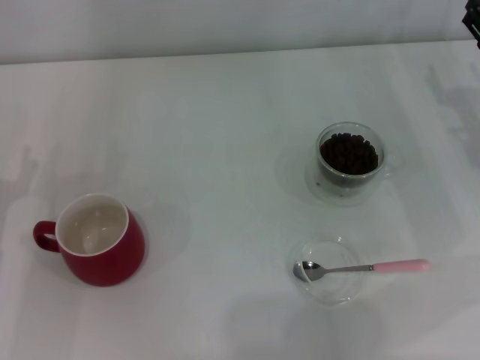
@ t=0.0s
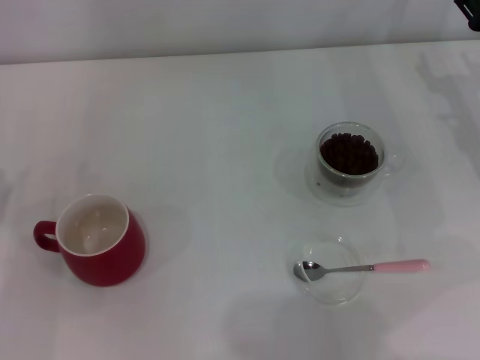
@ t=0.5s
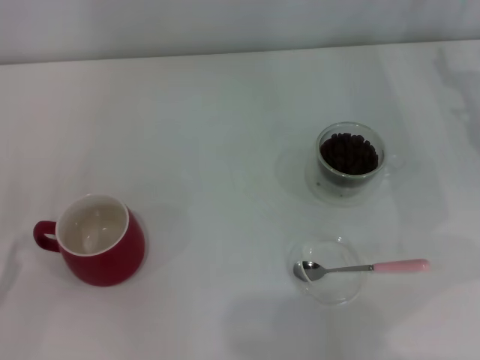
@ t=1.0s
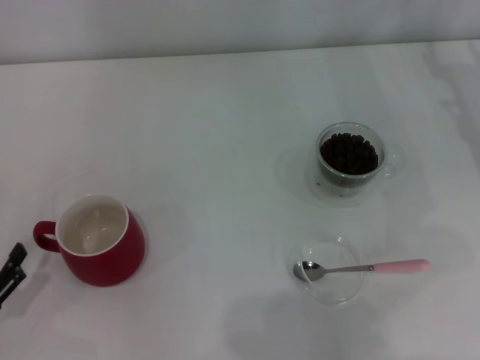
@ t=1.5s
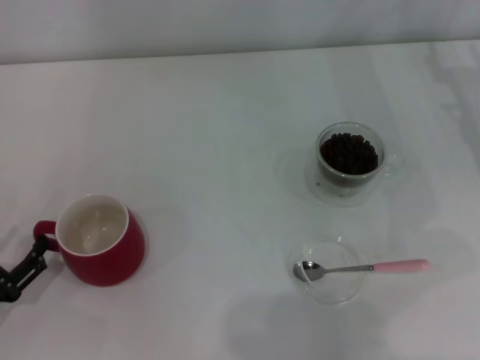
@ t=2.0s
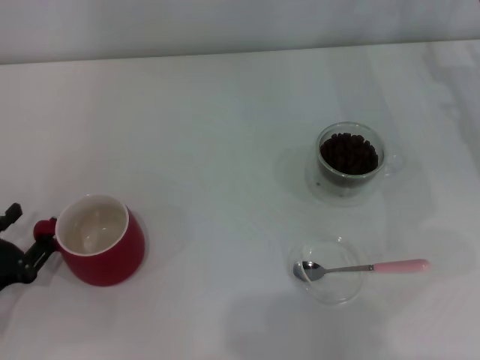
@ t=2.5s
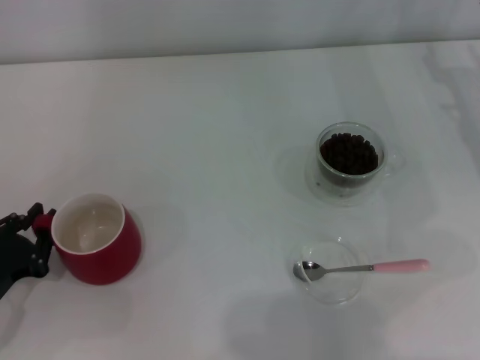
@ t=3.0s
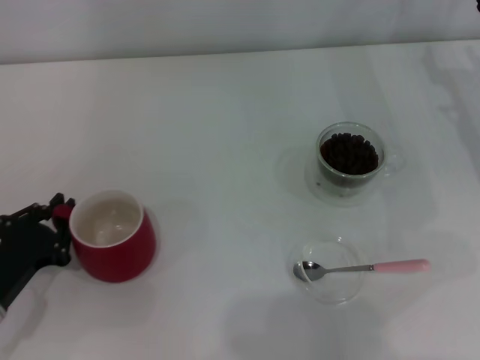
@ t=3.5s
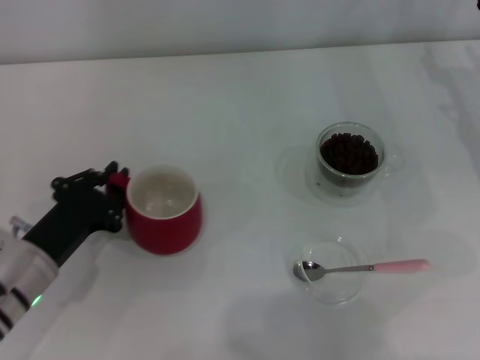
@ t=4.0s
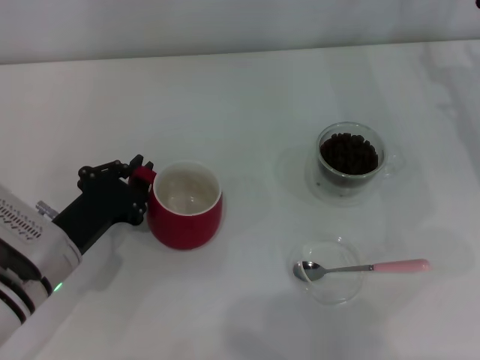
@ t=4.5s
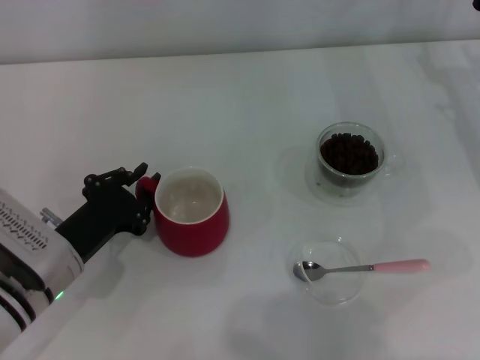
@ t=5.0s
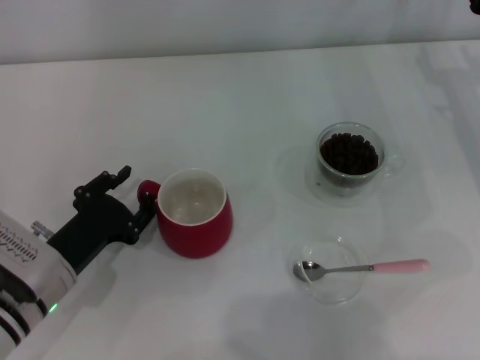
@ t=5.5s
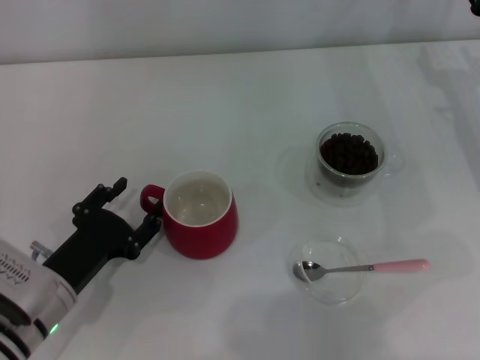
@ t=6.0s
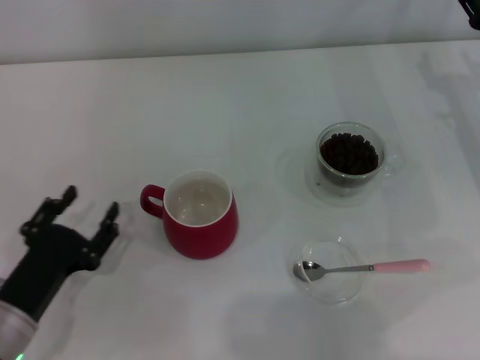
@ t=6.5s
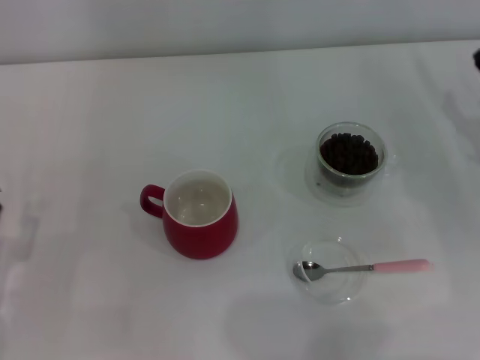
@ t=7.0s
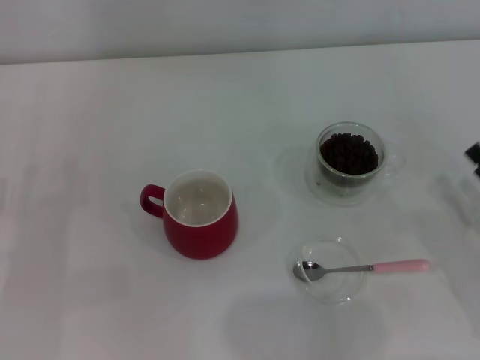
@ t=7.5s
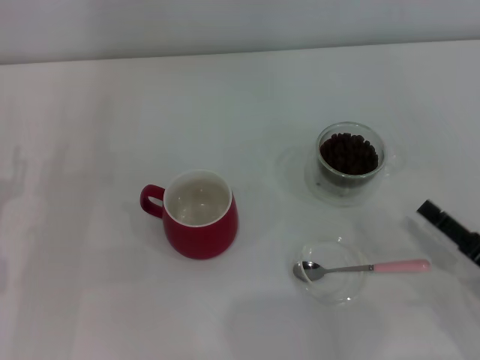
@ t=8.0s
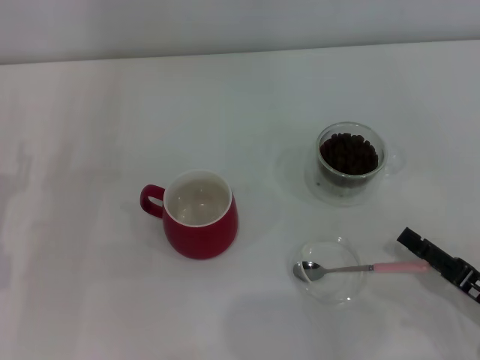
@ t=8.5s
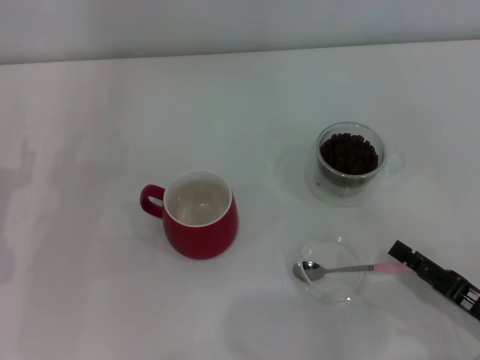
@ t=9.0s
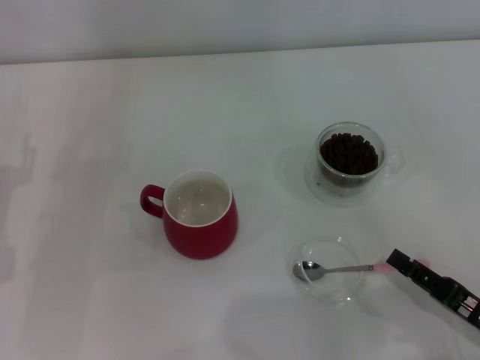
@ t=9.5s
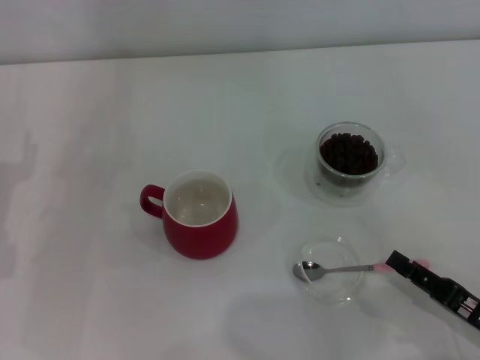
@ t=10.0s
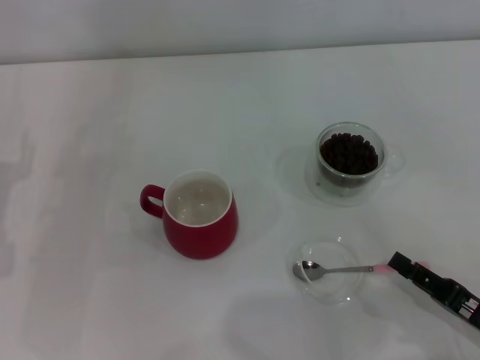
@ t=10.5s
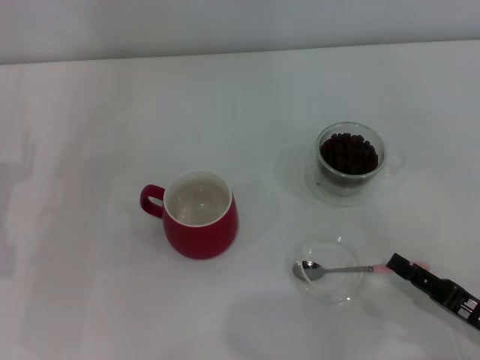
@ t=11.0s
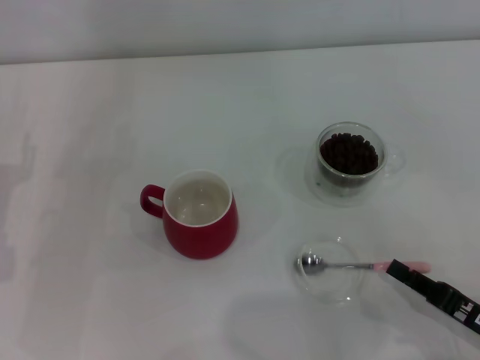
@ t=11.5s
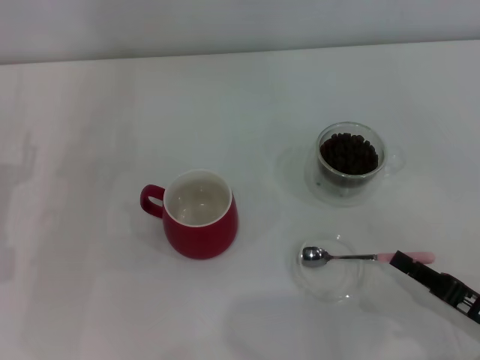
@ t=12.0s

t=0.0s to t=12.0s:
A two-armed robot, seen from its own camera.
Task of the whole recording: Use a pink spoon to take out the coffee beans from the glass and pour them into the red cup.
Step, t=0.0s to t=6.5s: Move the cup to the center of view with the left gripper.
t=0.0s to t=2.0s: The left gripper travels backward by roughly 10 cm.
t=2.0s to t=4.0s: The left gripper travels to the right and forward by approximately 10 cm, and closes its fingers.
t=4.0s to t=6.0s: The left gripper opens.
t=6.0s to t=8.0s: The left gripper heads to the left, covering about 10 cm; the right gripper shifts some 25 cm backward.
t=8.0s to t=10.0s: The right gripper closes up.
t=10.0s to t=12.0s: The right gripper closes its fingers.

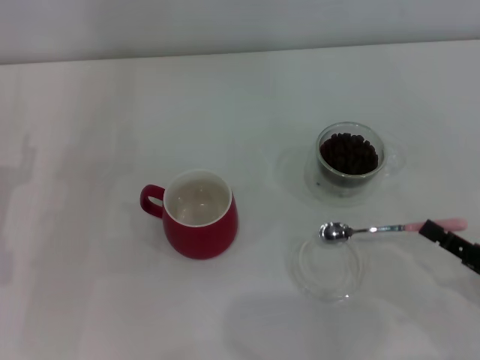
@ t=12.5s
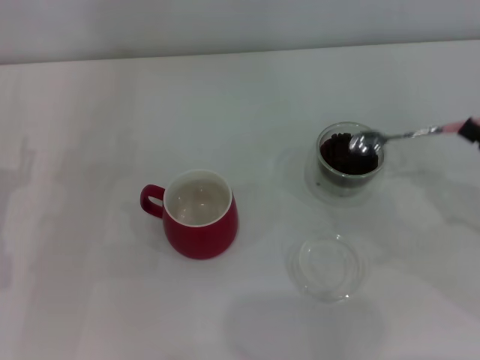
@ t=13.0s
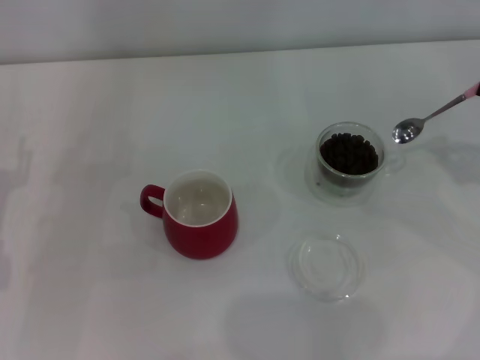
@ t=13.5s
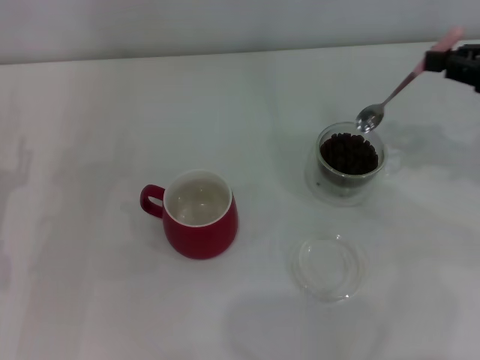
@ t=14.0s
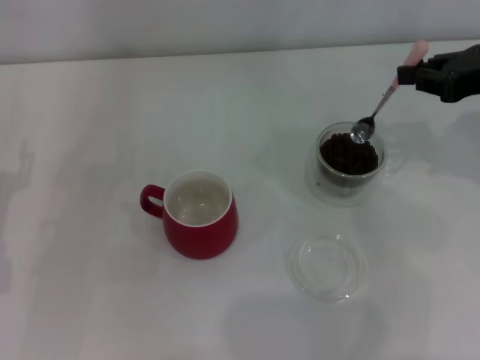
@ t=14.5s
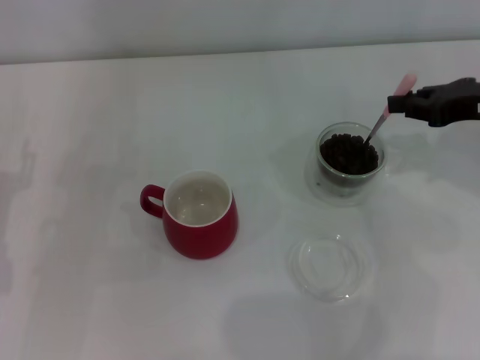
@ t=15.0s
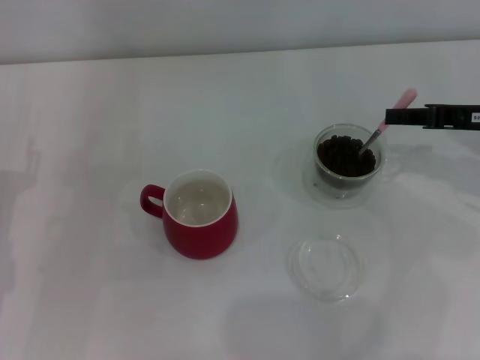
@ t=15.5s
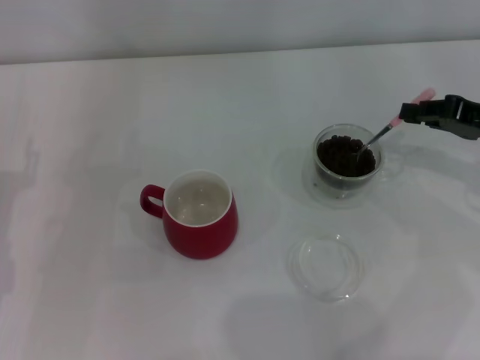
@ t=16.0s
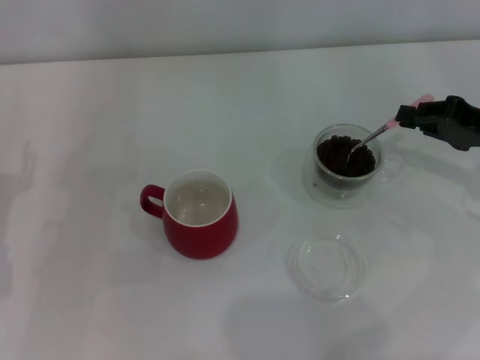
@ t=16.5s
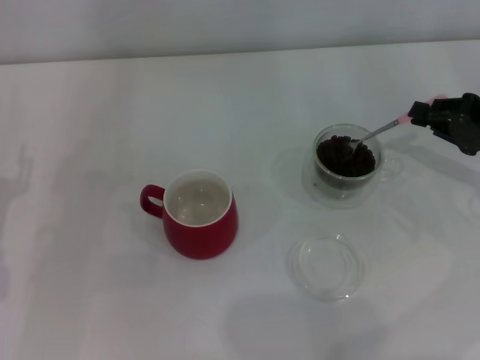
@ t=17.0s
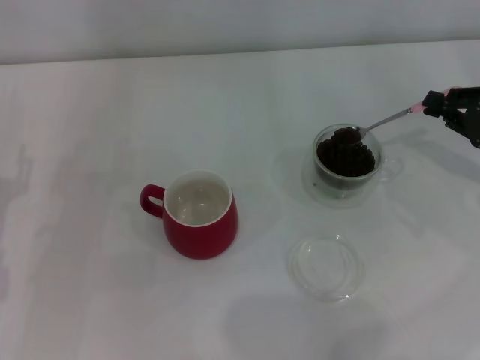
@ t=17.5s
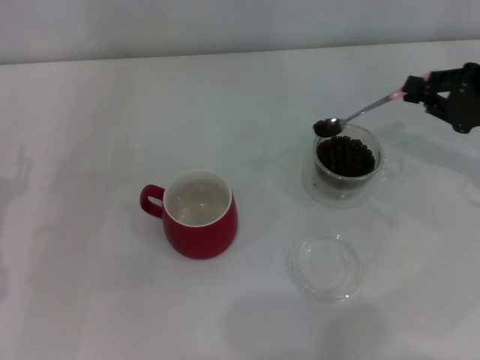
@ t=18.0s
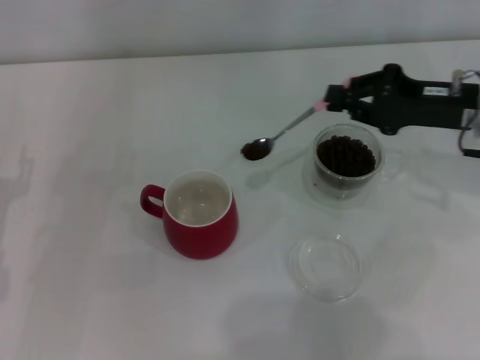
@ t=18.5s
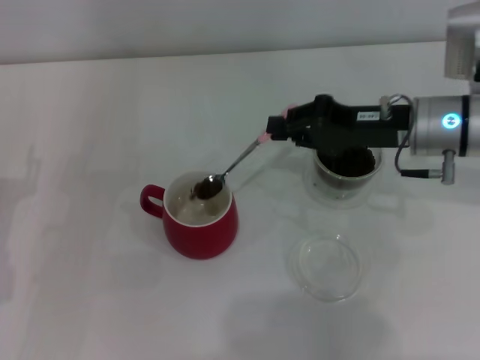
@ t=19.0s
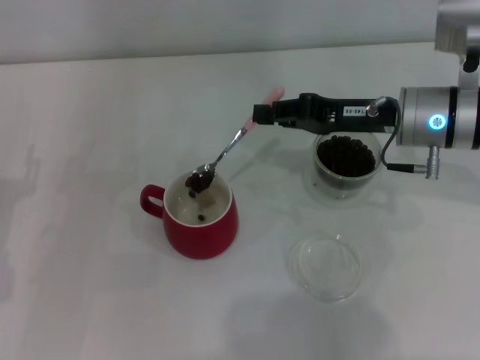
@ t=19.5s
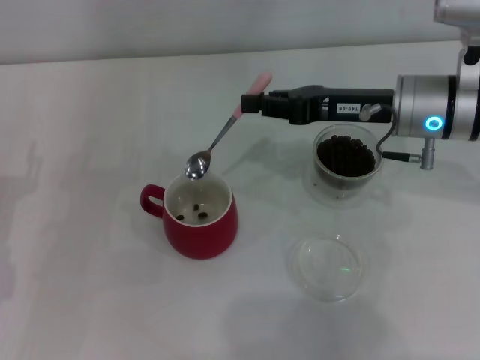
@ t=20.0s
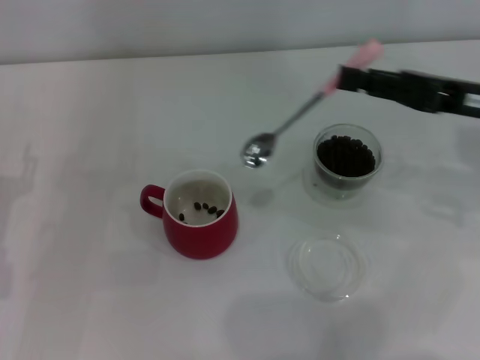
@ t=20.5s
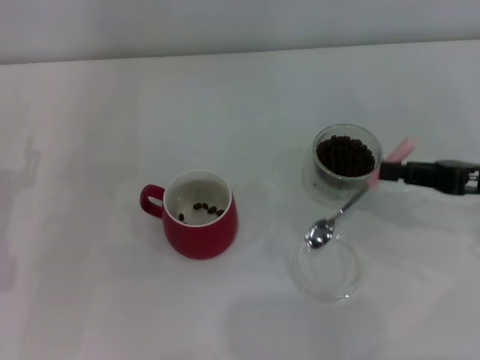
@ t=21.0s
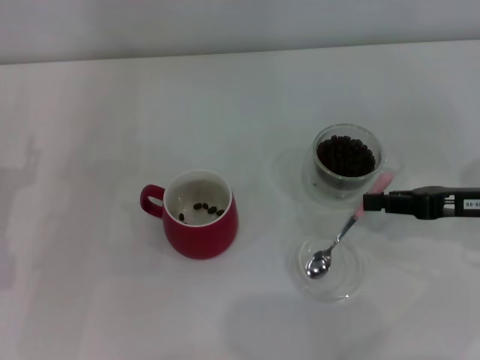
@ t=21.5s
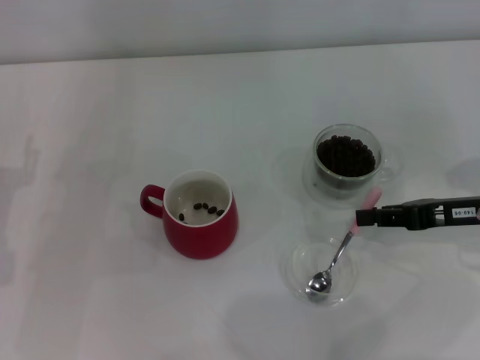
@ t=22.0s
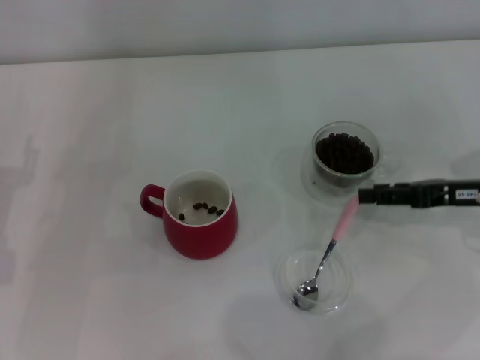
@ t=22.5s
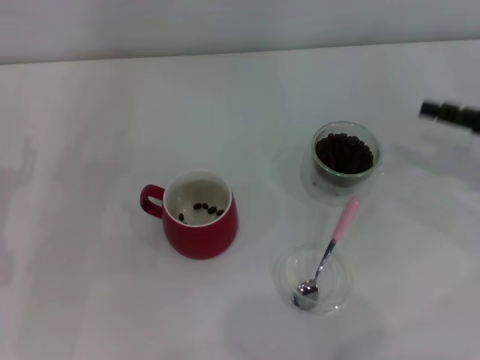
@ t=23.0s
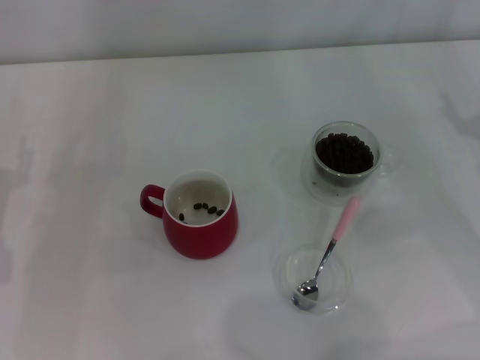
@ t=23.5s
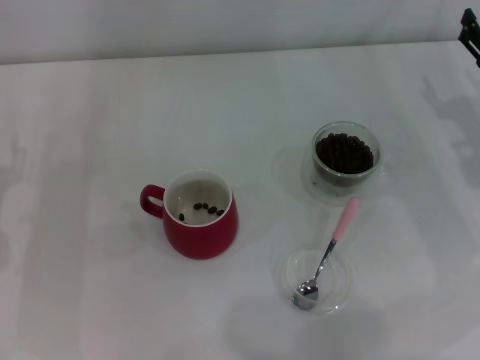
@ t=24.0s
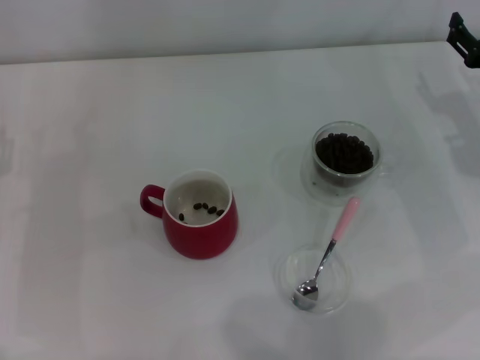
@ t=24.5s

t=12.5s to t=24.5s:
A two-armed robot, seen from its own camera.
Task of the whole recording: Use a pink spoon to take out the coffee beans from the glass and pour them into the red cup.
Step, t=13.0s to t=20.0s: Scoop a spoonful of beans into the cup with the right gripper.
Step, t=20.5s to t=22.5s: Place the spoon back in its original place with the right gripper.
t=12.5s to t=14.5s: The right gripper shifts some 25 cm forward and upward.
t=14.5s to t=16.5s: The right gripper travels downward by approximately 10 cm.
t=16.5s to t=18.5s: The right gripper is displaced to the left by some 5 cm.
t=18.5s to t=20.5s: The right gripper moves about 10 cm to the left and comes back.
t=20.5s to t=22.5s: The right gripper moves downward, approximately 10 cm.
t=22.5s to t=24.5s: The right gripper travels forward by approximately 5 cm, and opens up.

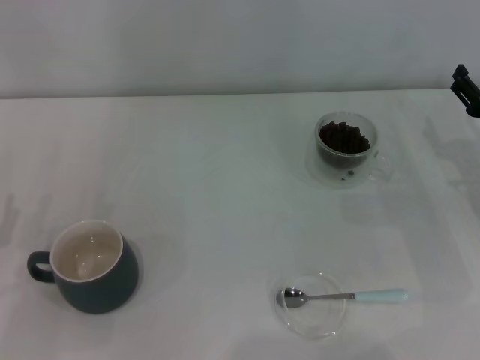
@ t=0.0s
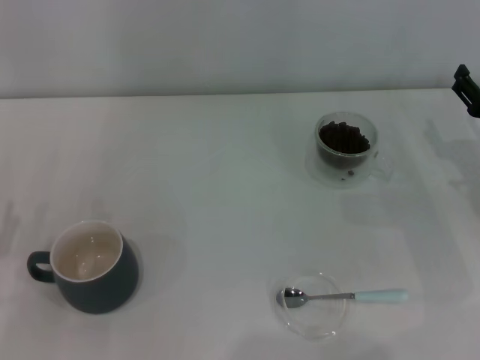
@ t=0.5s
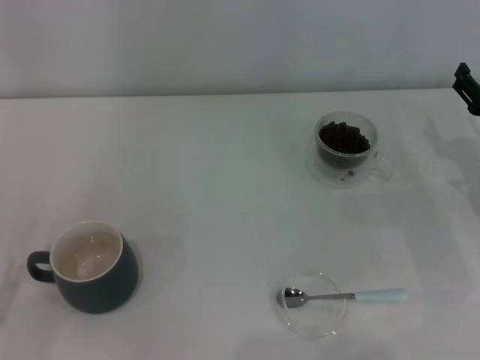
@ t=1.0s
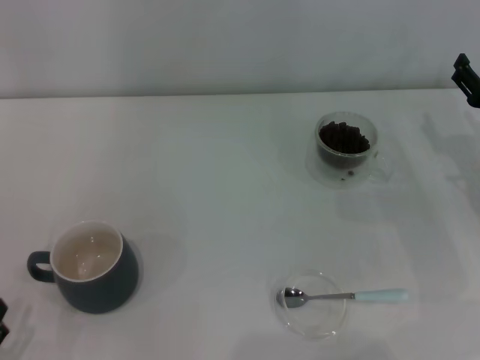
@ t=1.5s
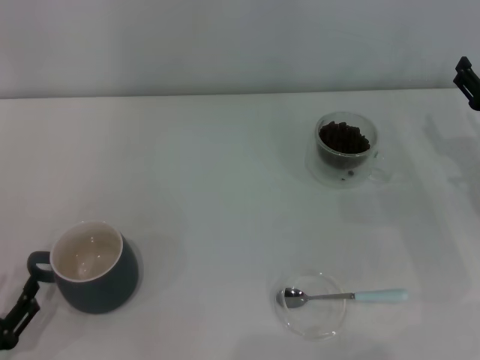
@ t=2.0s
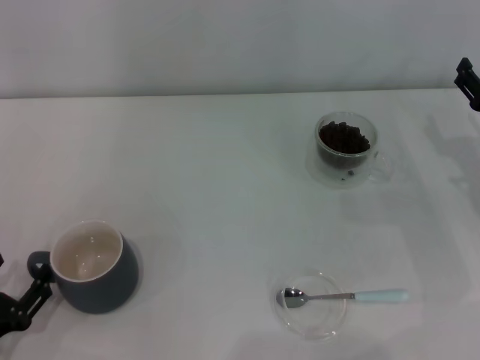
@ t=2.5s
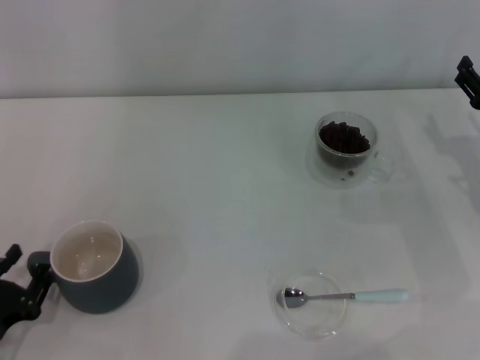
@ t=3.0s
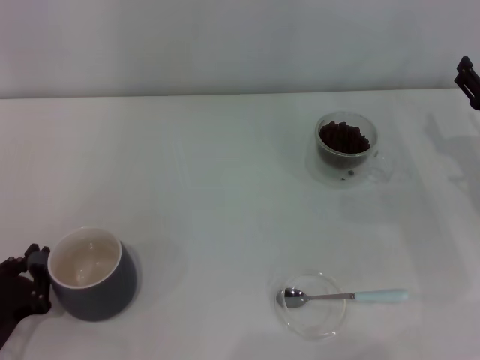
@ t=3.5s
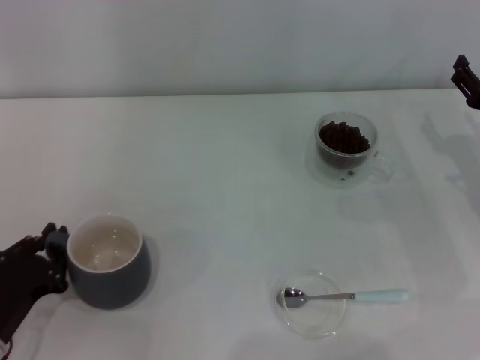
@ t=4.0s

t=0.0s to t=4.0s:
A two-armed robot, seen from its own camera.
Task of the whole recording: Use a blue spoon to take out the coffee beans from the glass and pour them into the gray cup.
t=0.0s to t=2.0s: The left gripper travels backward by approximately 10 cm.
t=2.0s to t=4.0s: The left gripper shifts roughly 5 cm forward, and closes up.
